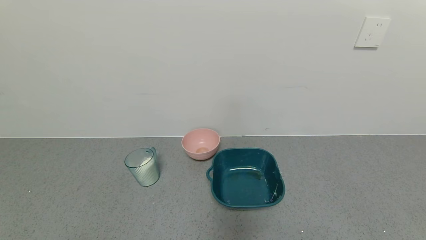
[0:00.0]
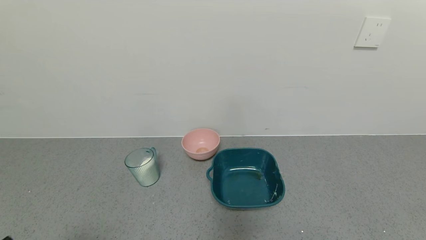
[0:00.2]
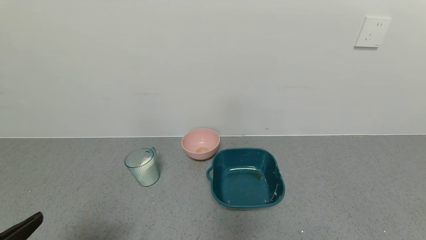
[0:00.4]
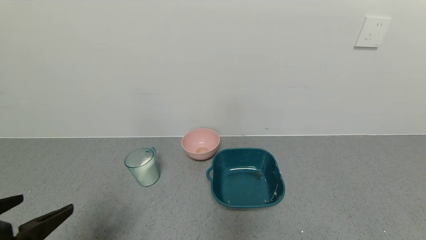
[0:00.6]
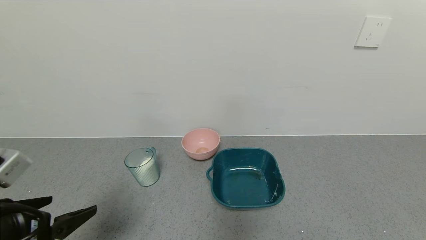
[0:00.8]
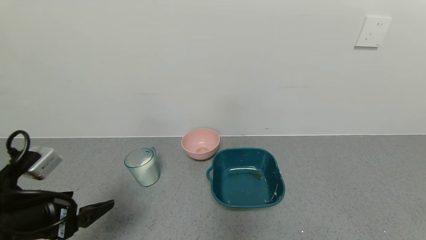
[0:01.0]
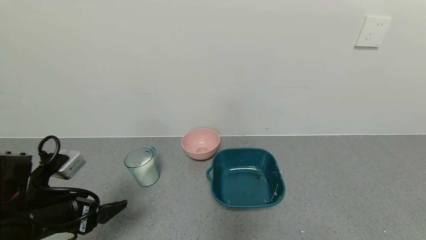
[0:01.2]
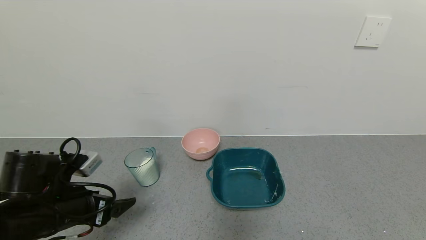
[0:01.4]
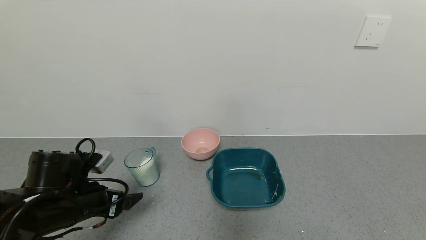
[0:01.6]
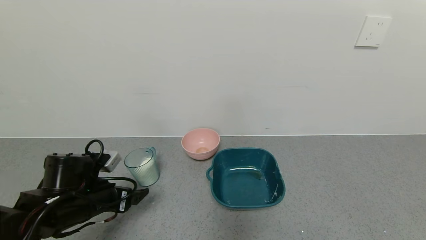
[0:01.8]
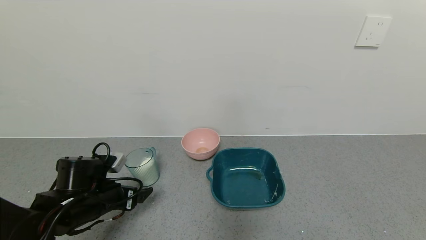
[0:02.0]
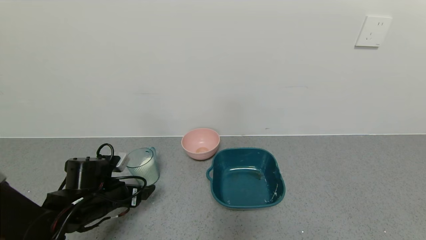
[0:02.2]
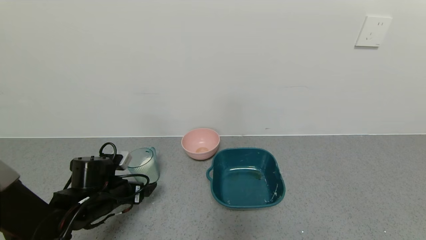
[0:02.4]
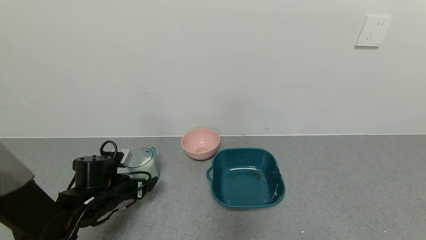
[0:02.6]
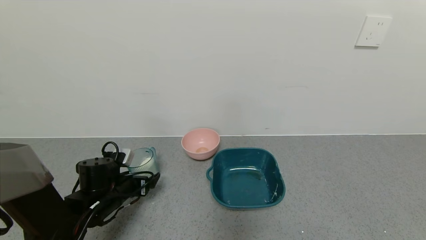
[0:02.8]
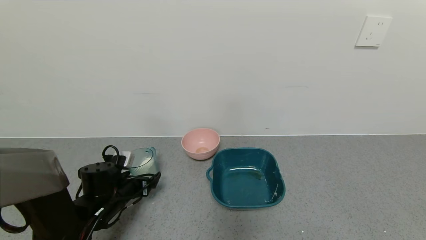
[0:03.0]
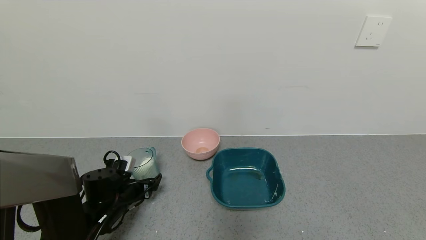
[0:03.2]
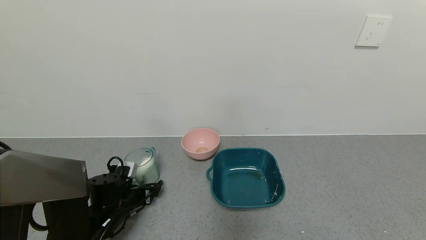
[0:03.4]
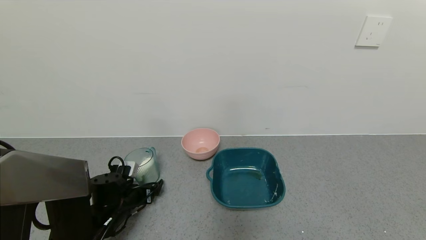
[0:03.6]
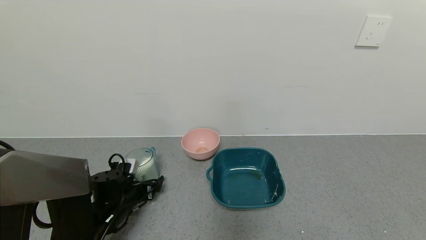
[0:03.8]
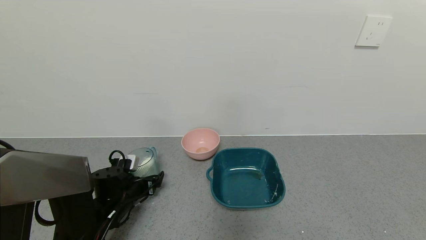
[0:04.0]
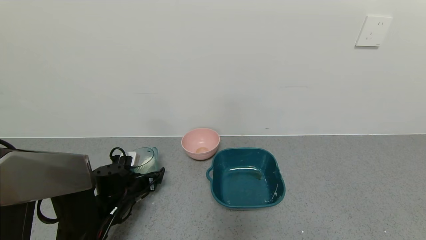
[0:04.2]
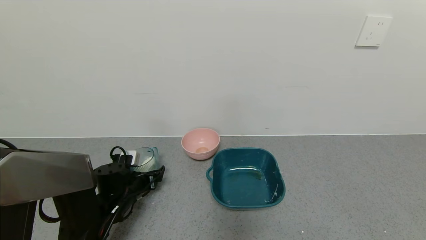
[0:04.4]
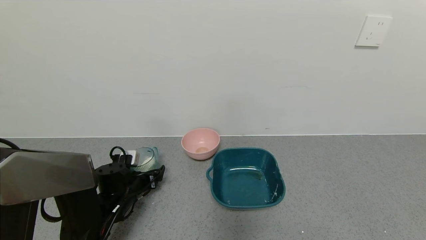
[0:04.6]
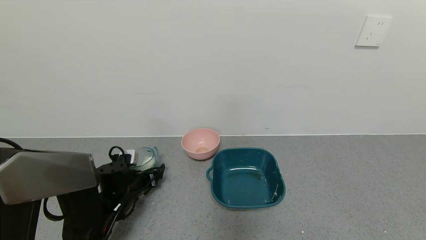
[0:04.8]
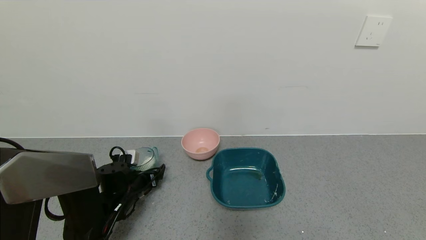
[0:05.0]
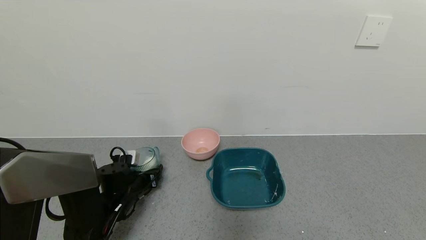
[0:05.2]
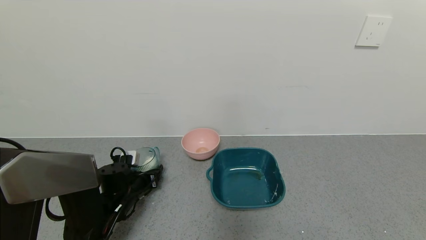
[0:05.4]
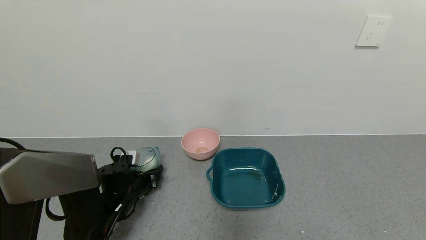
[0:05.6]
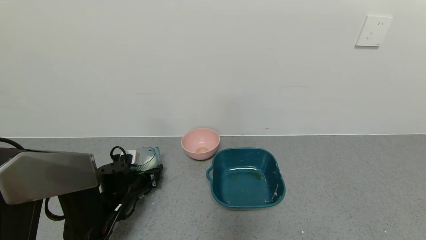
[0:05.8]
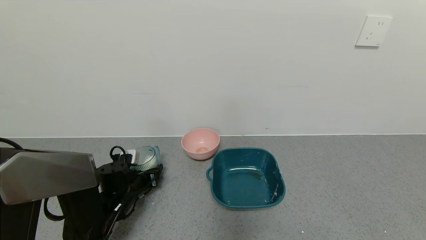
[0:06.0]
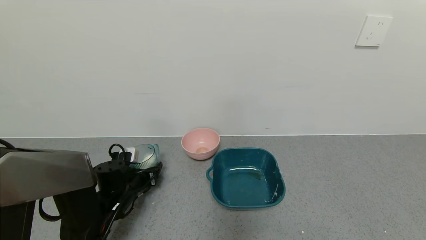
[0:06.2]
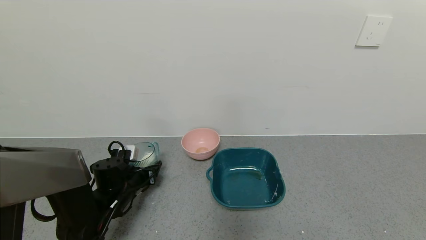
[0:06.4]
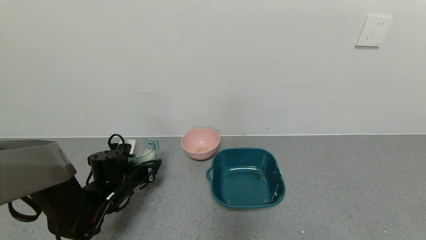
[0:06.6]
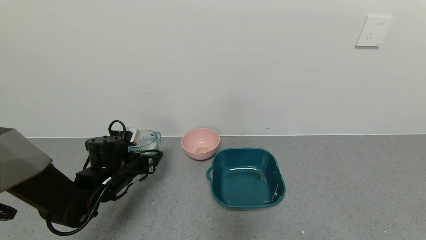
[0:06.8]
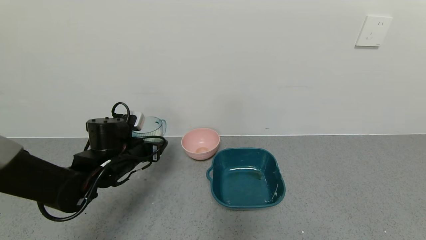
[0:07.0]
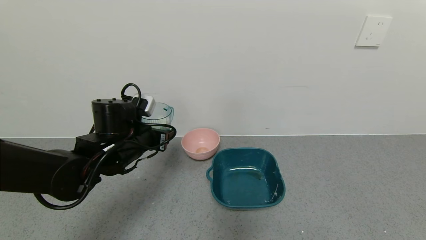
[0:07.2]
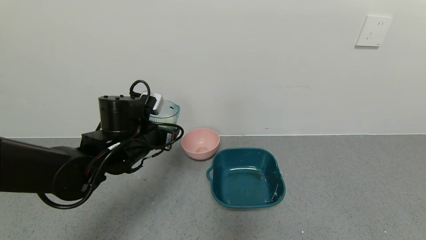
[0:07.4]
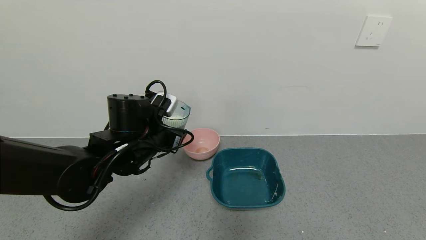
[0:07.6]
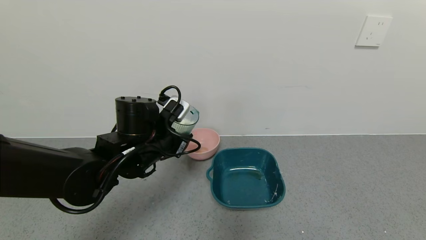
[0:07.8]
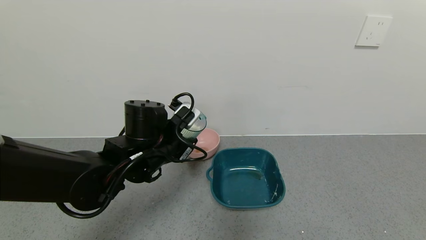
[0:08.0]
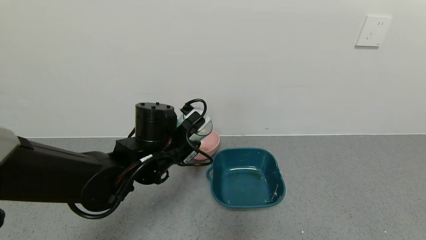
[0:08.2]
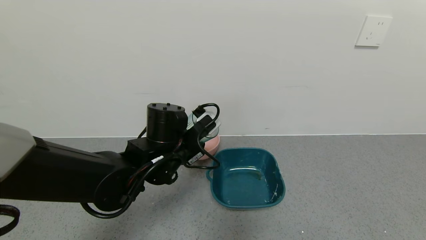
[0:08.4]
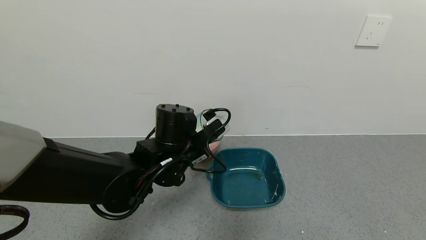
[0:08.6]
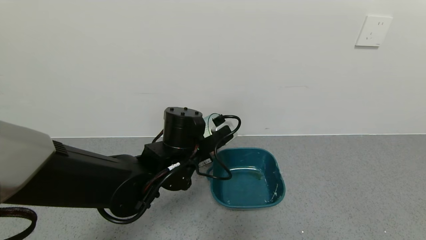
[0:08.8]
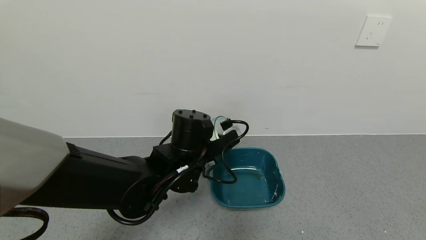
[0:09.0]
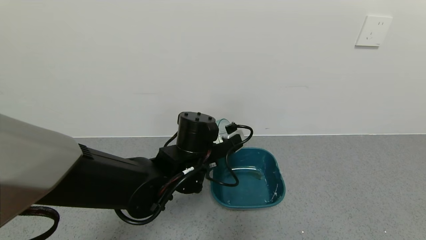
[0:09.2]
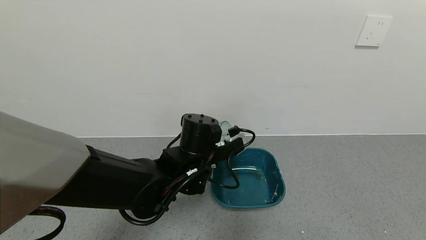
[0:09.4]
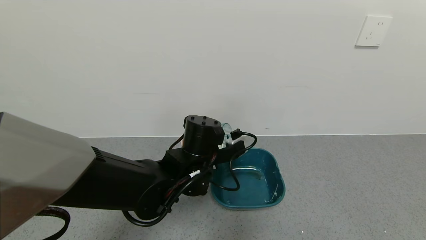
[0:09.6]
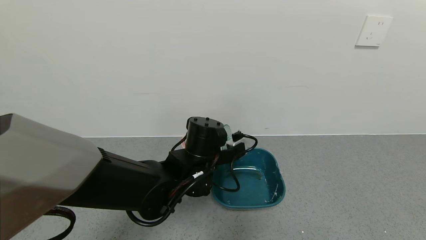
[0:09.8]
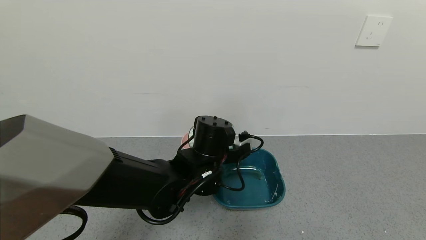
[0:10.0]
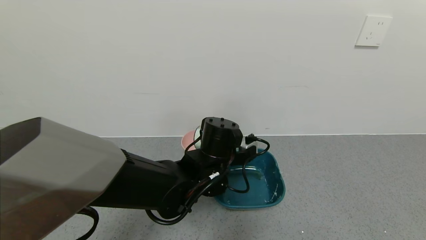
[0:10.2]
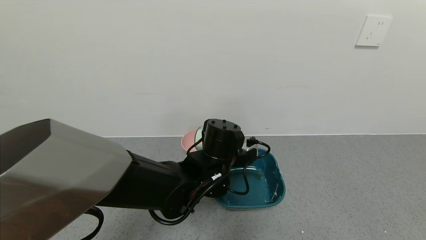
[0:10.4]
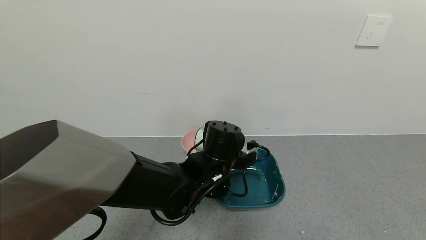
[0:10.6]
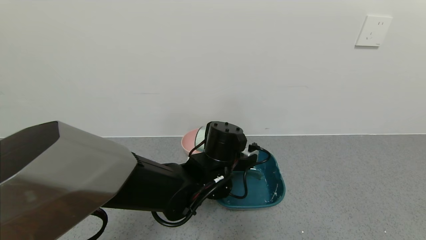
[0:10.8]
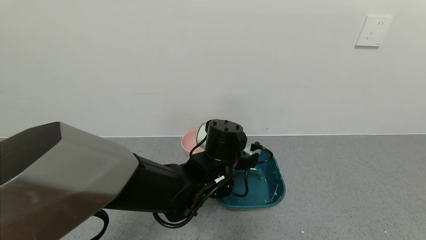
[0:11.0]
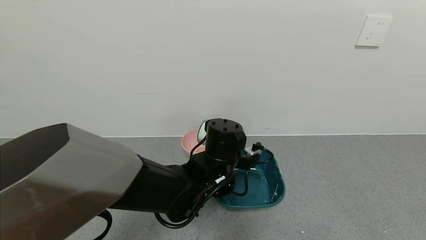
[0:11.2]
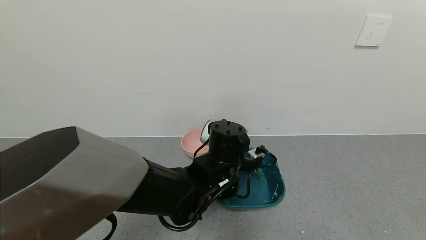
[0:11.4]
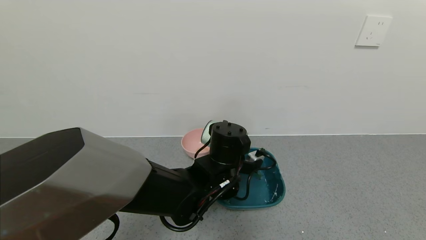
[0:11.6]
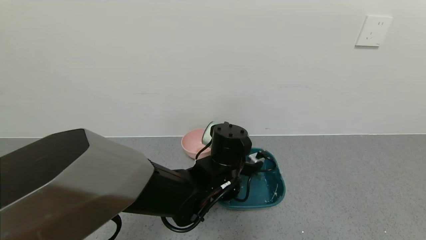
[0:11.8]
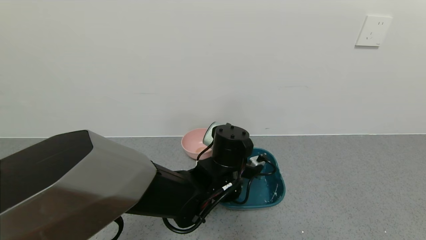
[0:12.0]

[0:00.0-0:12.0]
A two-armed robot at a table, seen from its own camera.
Task of the whole recording: use a gripper to pick up the cup and pour the powder into a bowl or tray.
Step, 0:00.0 to 0:05.4: Grasp the glass of powder with the left gripper.
0:00.0 to 0:01.6: The left gripper is displaced forward by approximately 25 cm.
0:01.6 to 0:03.0: The left gripper moves downward and forward, approximately 10 cm.
0:03.0 to 0:04.4: The grippers make only small movements.
0:04.4 to 0:06.0: The left gripper closes its fingers.
0:06.0 to 0:07.6: The left gripper shifts approximately 20 cm upward and to the right.
0:07.6 to 0:09.0: The left gripper travels to the right by about 10 cm.

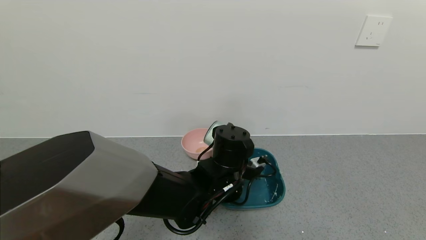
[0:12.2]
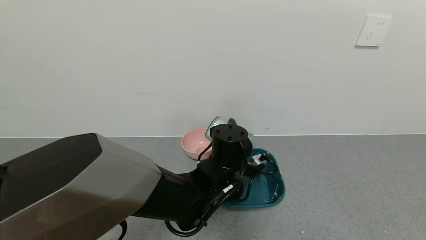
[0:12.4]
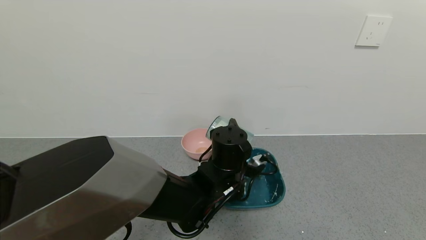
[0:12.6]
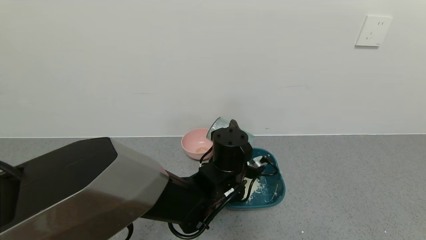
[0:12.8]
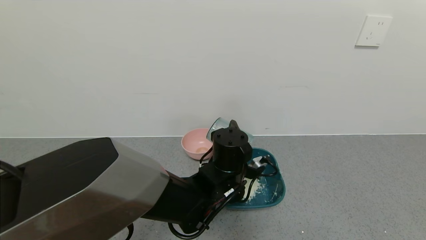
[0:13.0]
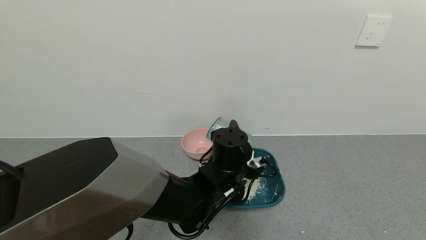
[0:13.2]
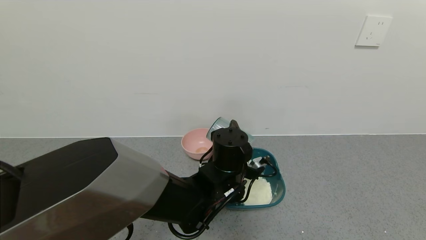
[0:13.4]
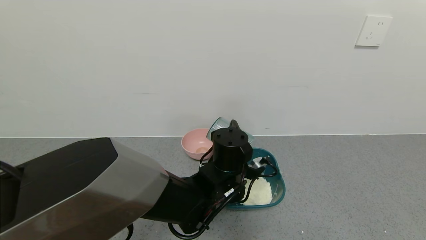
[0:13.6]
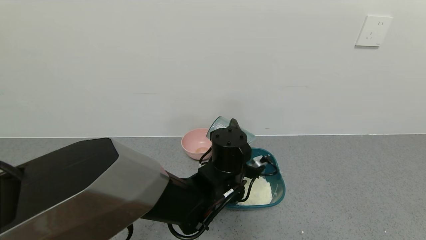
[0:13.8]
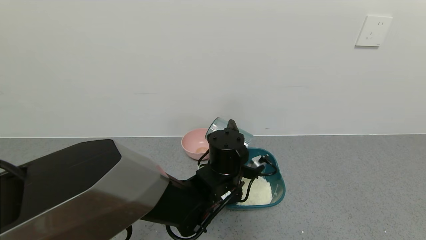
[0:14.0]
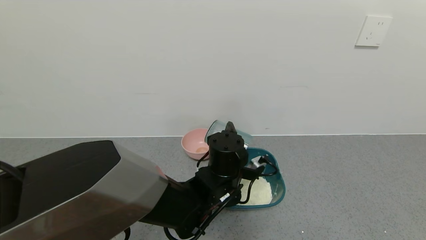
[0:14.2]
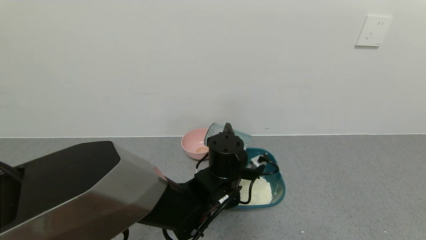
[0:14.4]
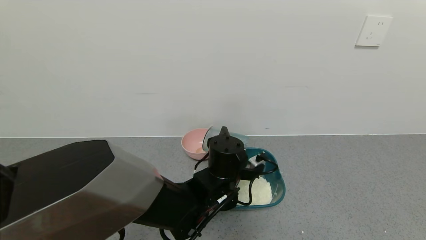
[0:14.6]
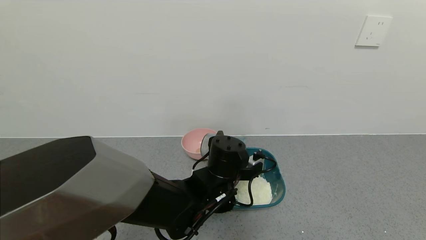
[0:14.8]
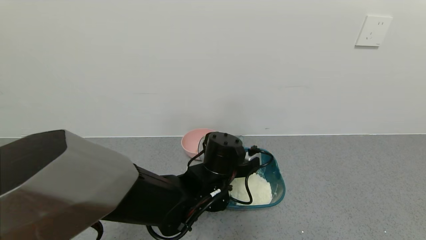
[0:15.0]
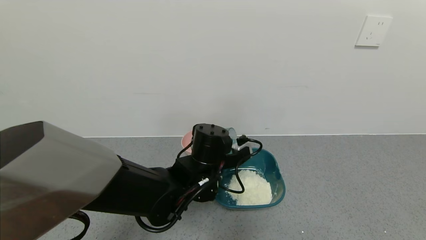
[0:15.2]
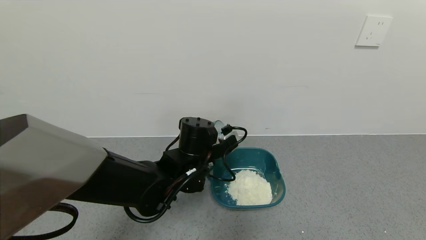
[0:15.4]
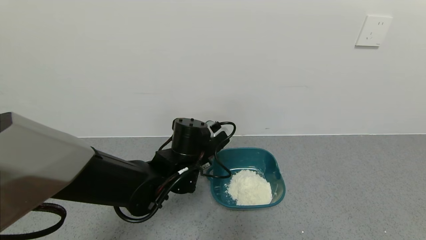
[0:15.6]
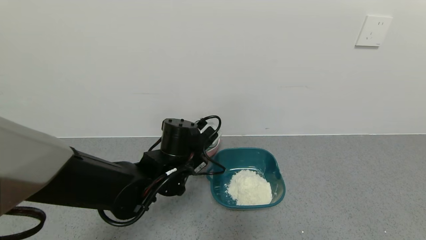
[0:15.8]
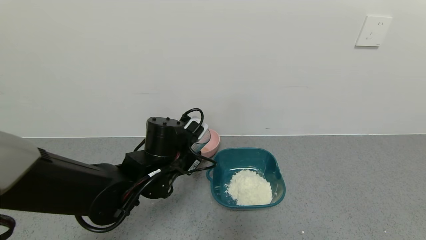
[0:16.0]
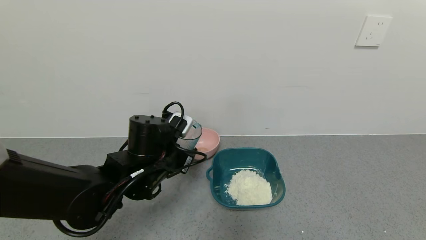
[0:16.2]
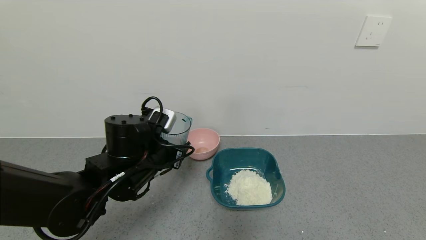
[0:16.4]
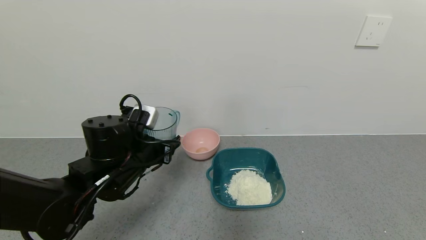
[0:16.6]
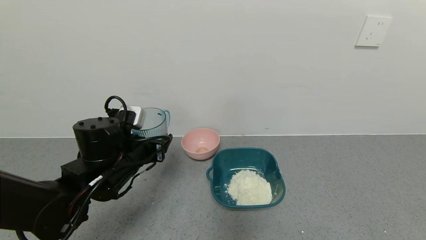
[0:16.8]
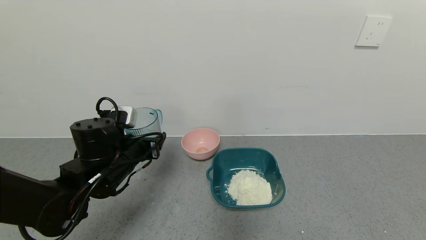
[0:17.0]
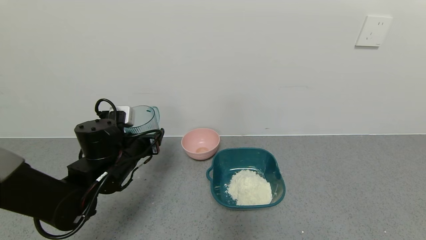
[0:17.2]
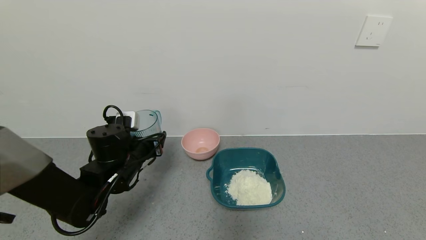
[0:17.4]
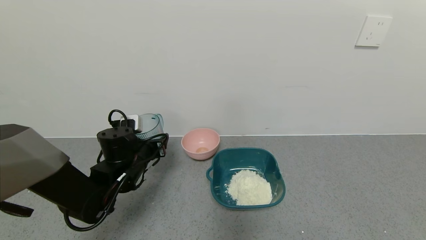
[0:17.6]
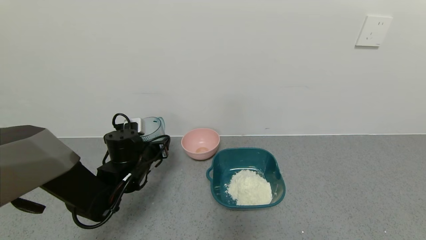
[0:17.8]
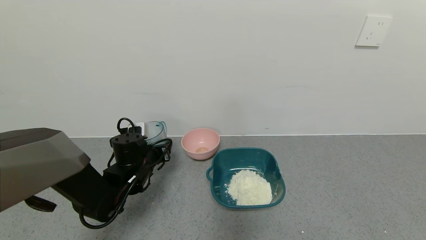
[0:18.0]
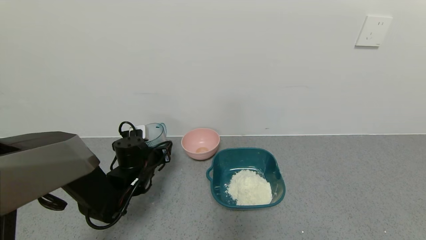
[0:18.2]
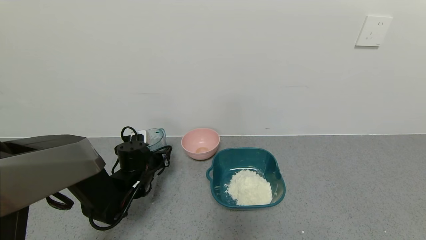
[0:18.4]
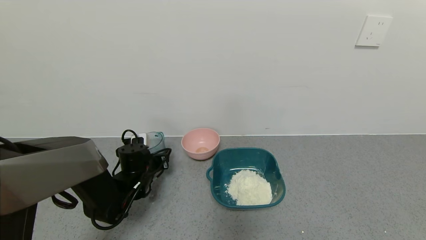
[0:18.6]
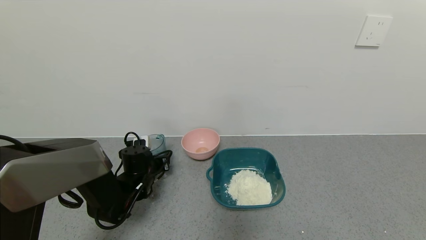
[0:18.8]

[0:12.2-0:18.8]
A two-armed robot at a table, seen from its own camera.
Task of the whole recording: use a gripper to pick up the cup and pour the powder into a bowl or tray.
Step, 0:12.2 to 0:14.2: Pour the powder into the pink bowl with the left gripper.
0:12.2 to 0:13.8: The grippers make only small movements.
0:13.8 to 0:15.4: The left gripper moves to the left, approximately 5 cm.
0:15.4 to 0:17.2: The left gripper shifts approximately 15 cm to the left.
0:17.2 to 0:18.8: The left gripper goes approximately 10 cm downward and forward.
